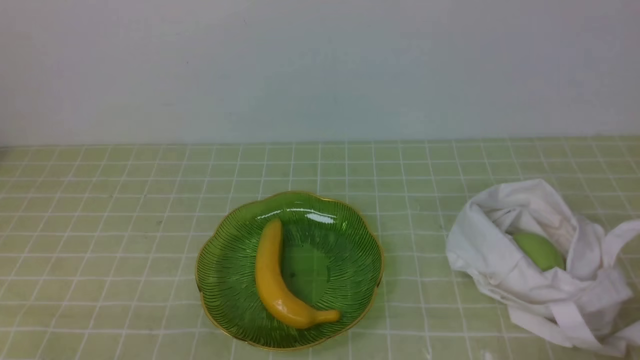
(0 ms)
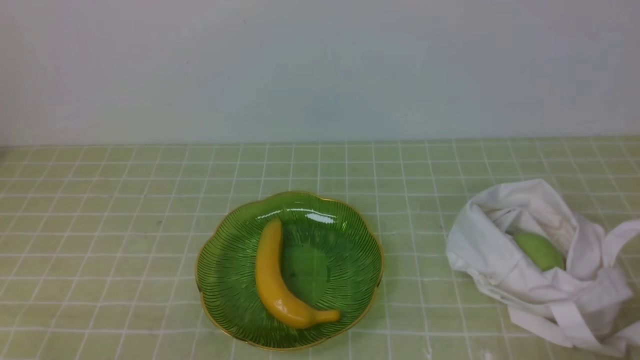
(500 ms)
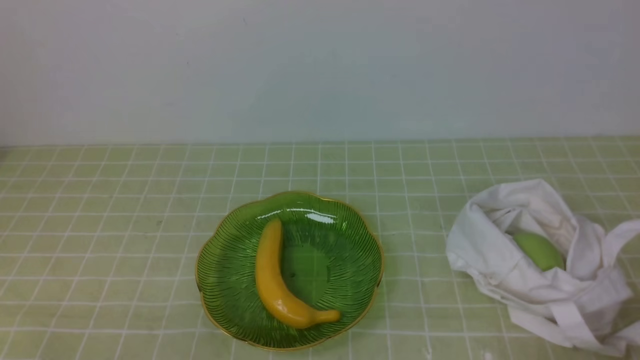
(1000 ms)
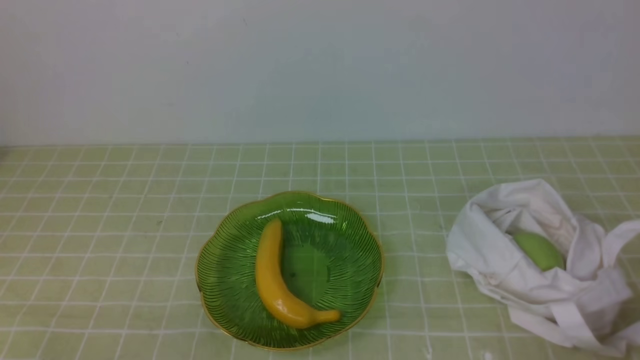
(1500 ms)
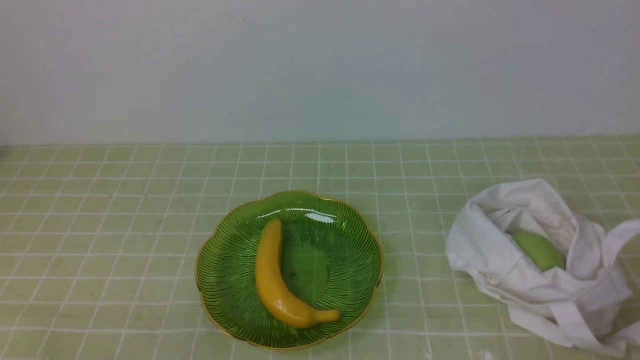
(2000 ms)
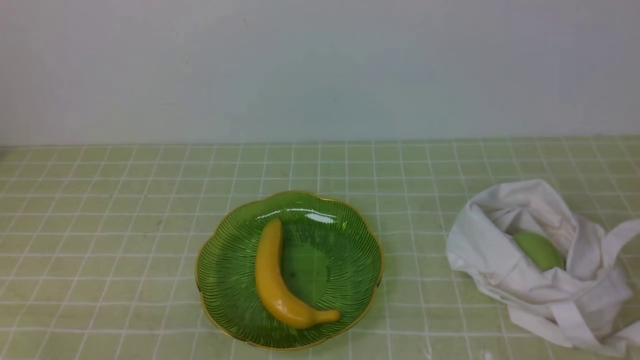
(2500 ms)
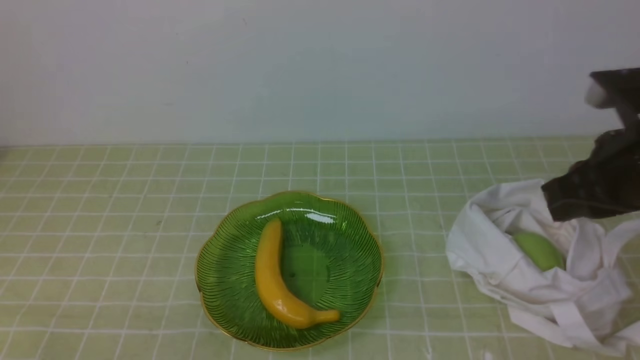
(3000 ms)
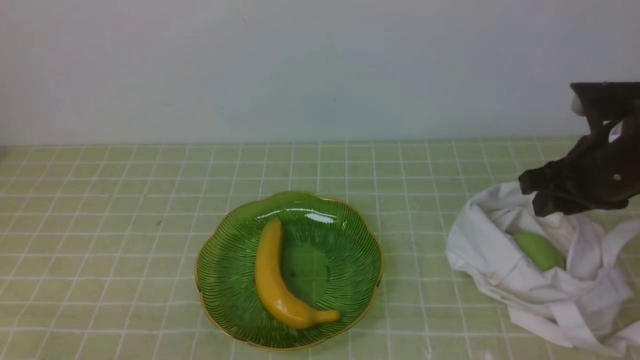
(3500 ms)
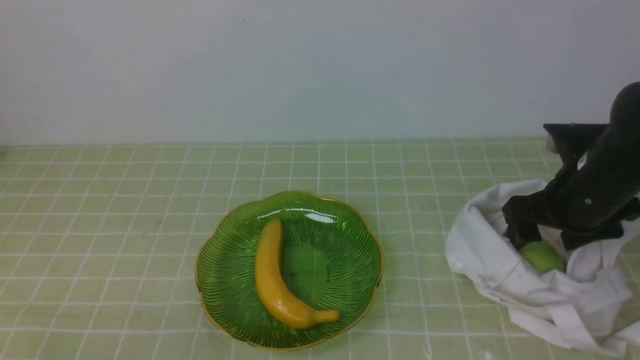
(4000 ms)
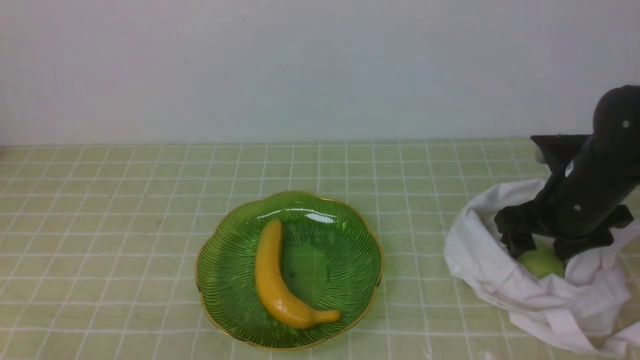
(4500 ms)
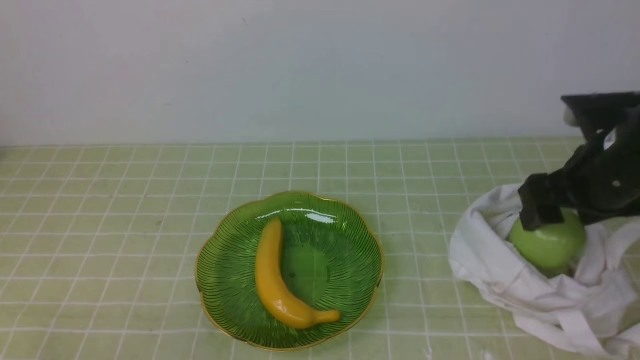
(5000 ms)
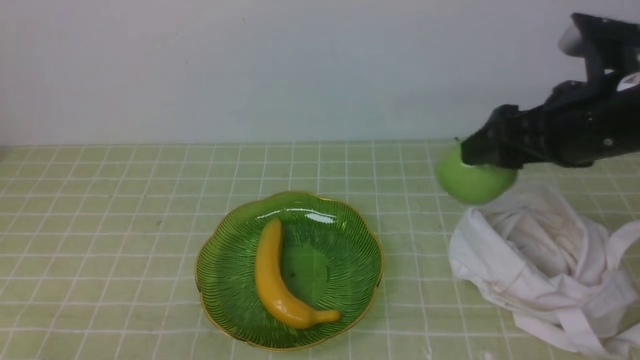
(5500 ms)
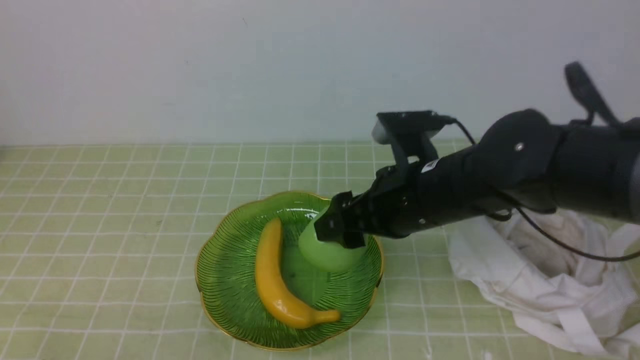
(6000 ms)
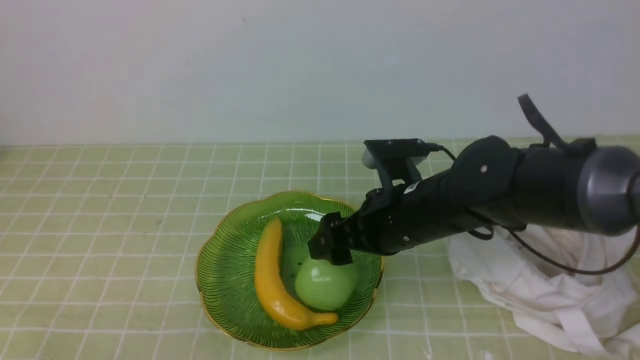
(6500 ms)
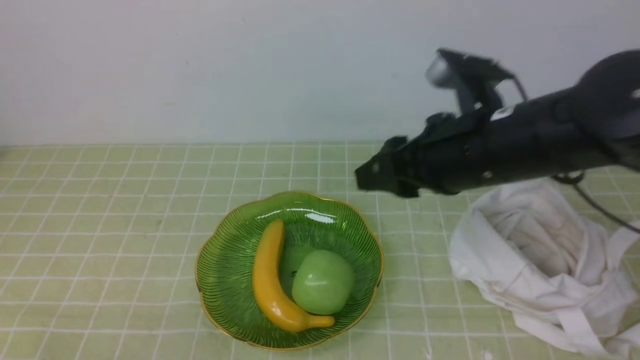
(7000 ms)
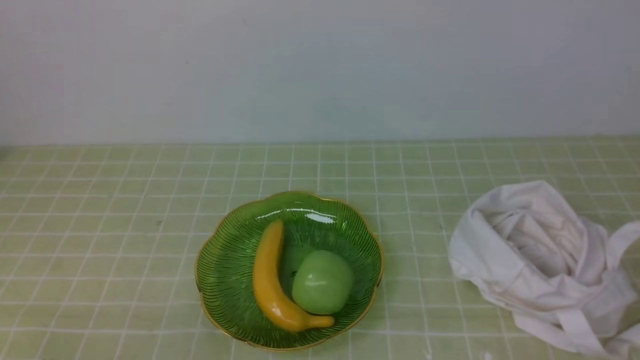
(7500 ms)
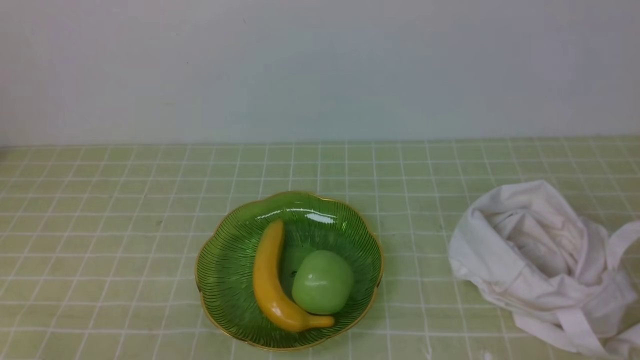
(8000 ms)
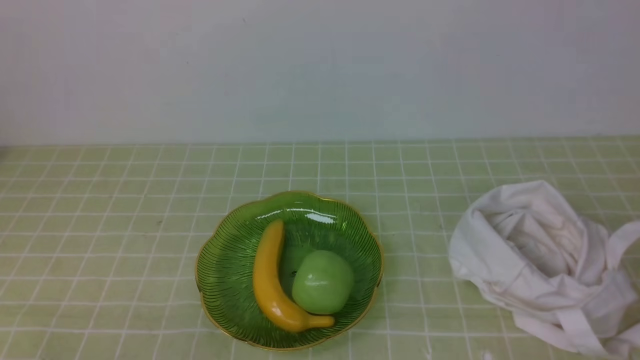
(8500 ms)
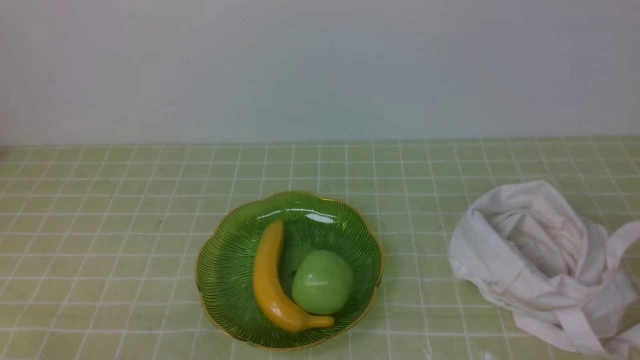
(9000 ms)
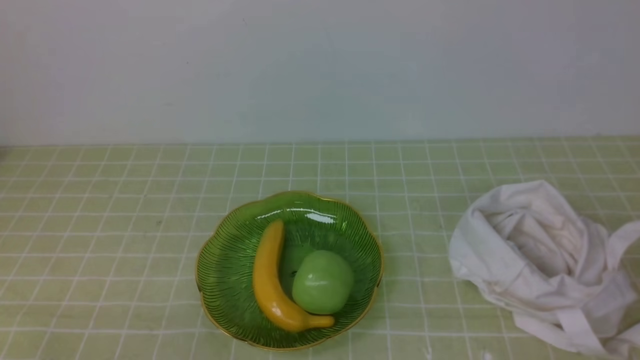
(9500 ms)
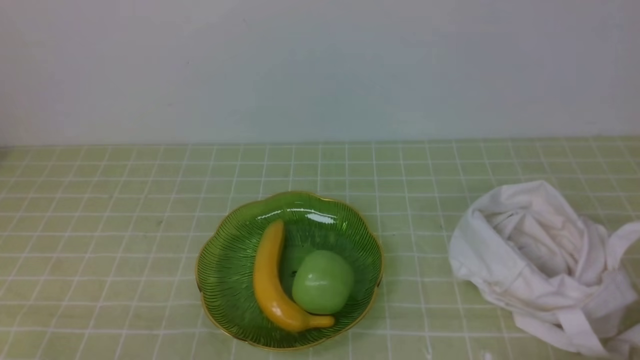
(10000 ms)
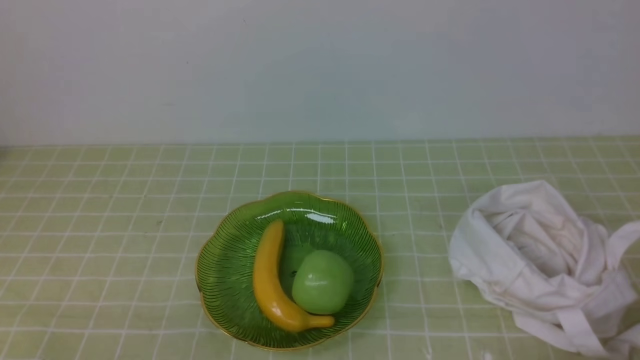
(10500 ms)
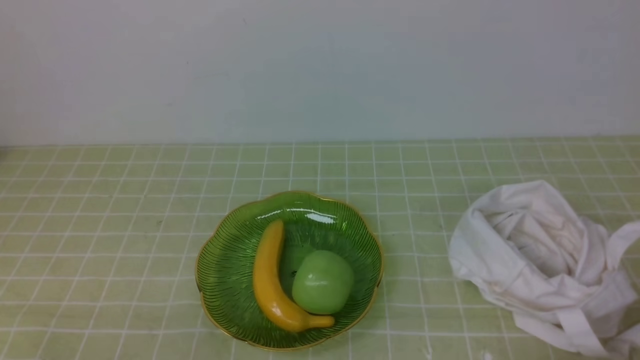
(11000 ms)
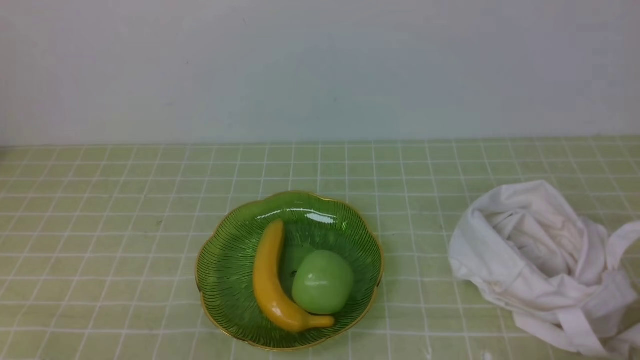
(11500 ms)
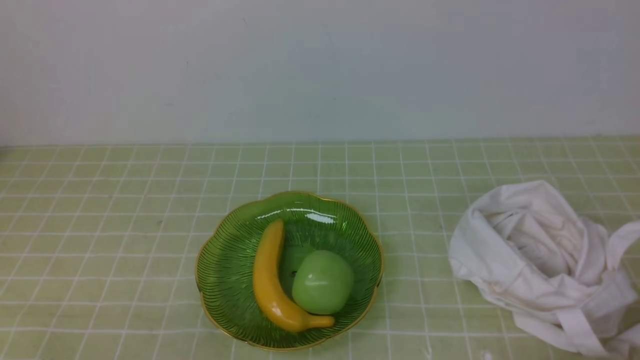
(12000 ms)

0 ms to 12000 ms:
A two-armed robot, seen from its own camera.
Step, 0 ms to 4500 ms: use the right arm to grab an apple from the bag.
Step, 5500 ms to 6000 ms: use the right arm to put the apple into the empty plate on the left.
2000 ms to 4000 ms: The right gripper is displaced forward by about 25 cm, and opens.
4000 ms to 6000 ms: The right gripper travels to the left by approximately 15 cm.
6000 ms to 8000 ms: The right gripper travels backward, to the right and upward by roughly 35 cm, and closes up.
10000 ms to 12000 ms: Both grippers stay about where they are.

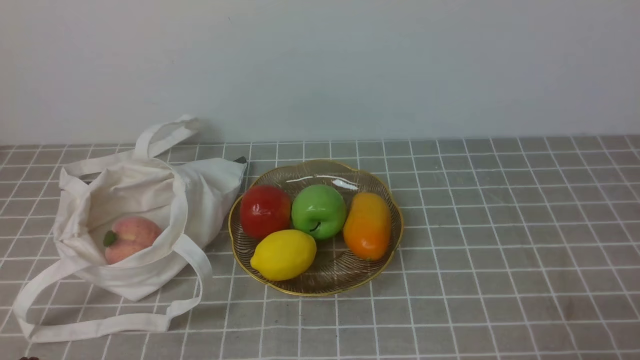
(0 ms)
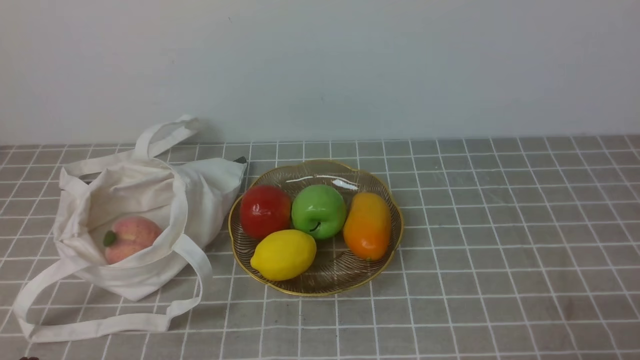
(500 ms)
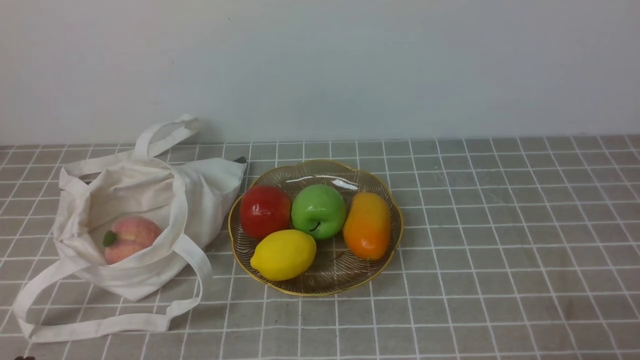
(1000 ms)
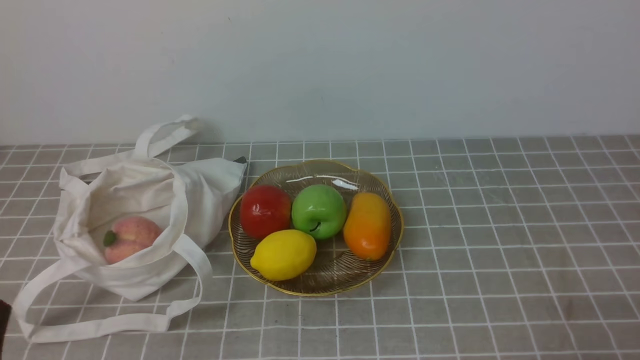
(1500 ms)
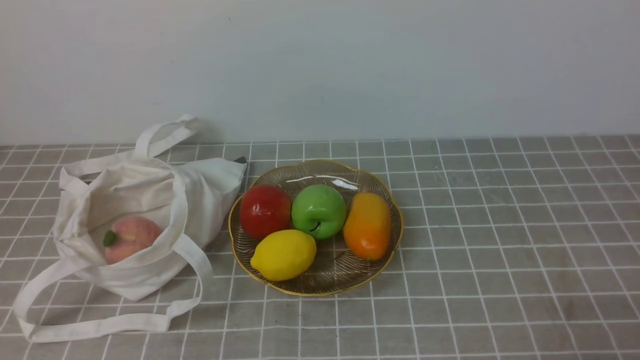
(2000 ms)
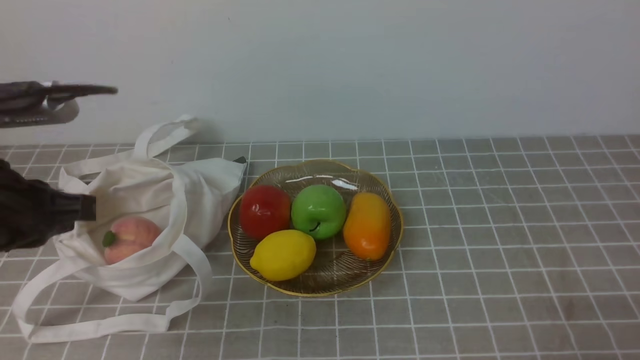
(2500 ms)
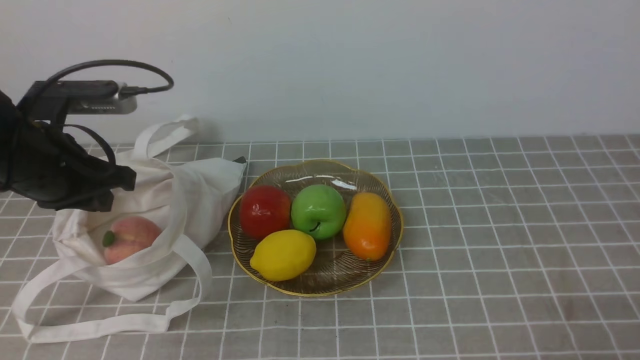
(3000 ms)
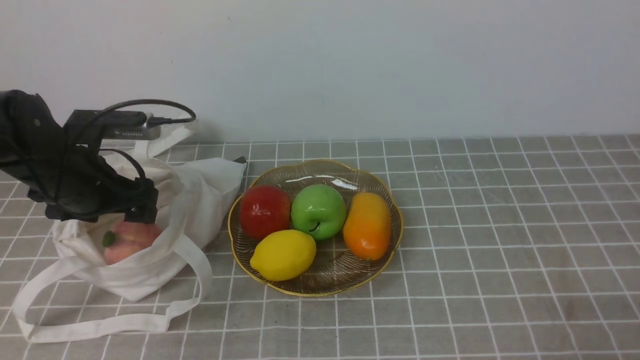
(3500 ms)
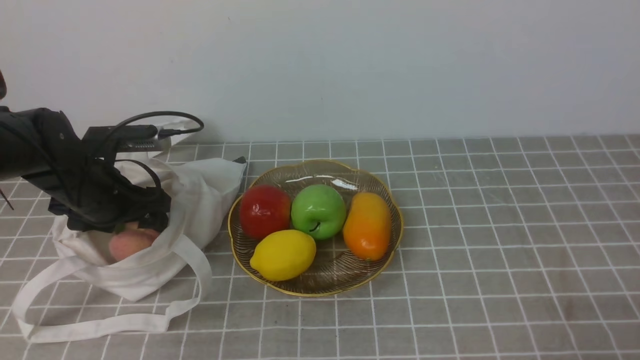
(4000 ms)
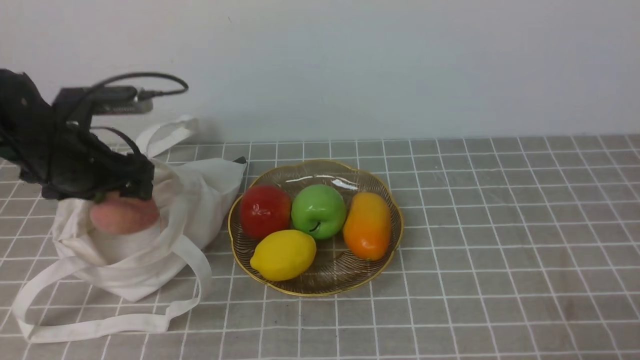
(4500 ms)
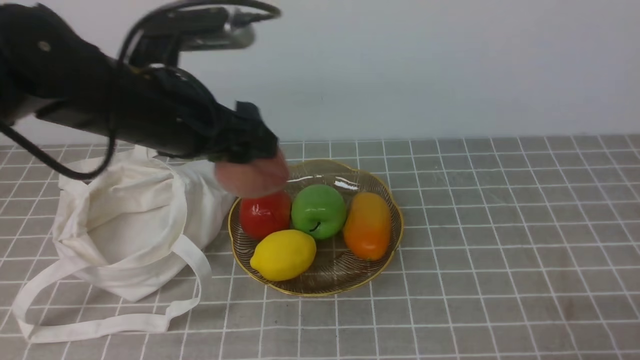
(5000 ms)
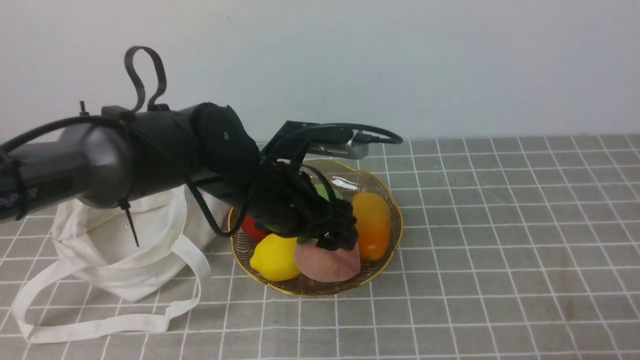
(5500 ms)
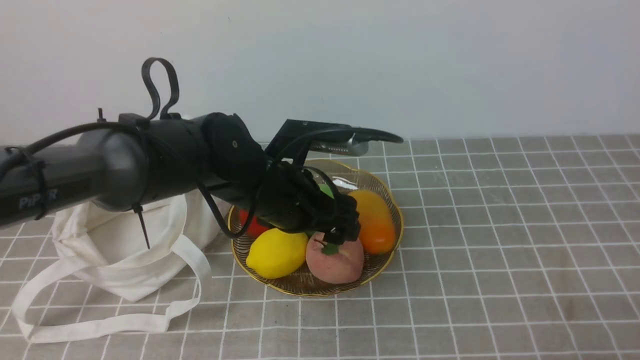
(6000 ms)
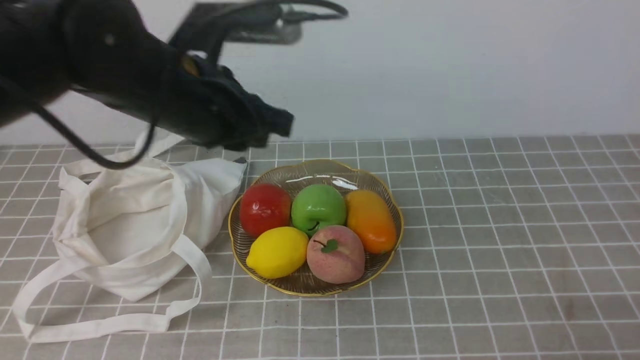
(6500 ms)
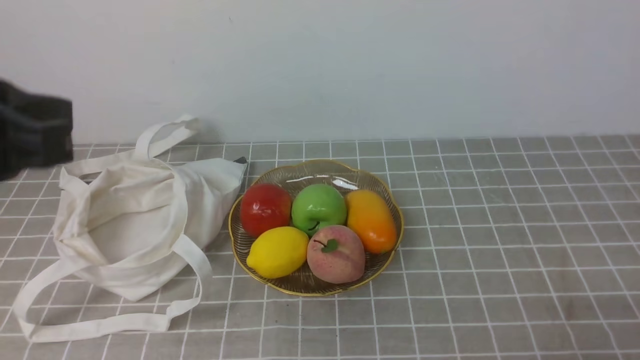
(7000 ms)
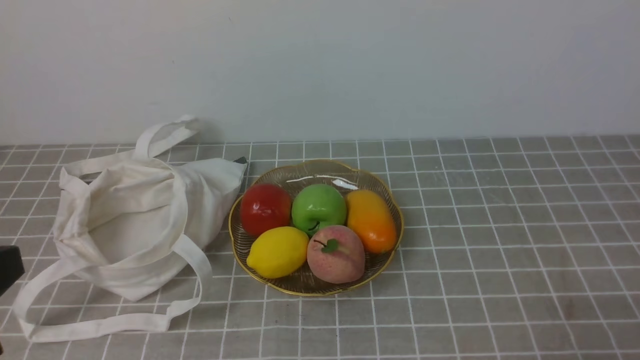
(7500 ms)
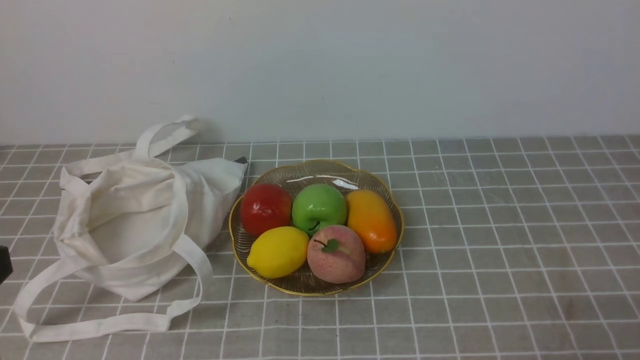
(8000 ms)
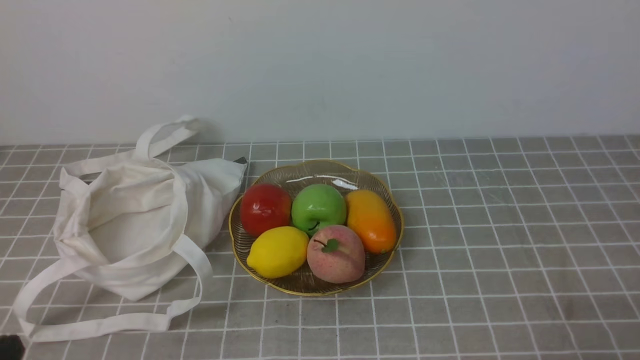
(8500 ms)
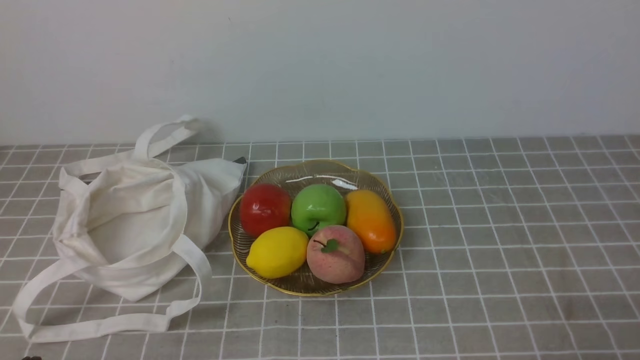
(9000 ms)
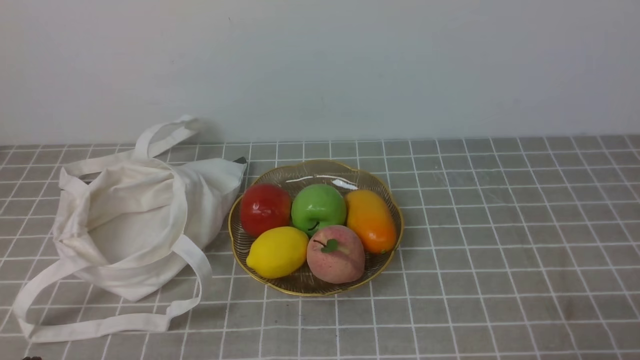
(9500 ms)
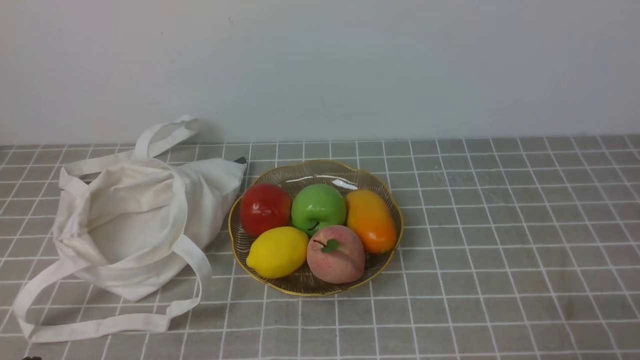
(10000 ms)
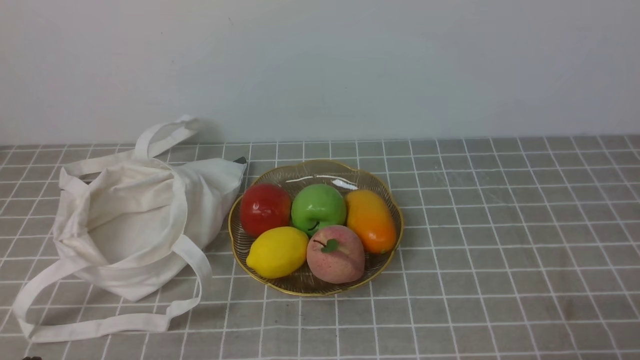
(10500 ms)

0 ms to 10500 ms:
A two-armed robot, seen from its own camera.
Step, 0 ms to 4500 ms: use the left arm to grab a peach from the bag.
Step, 5000 ms to 6000 ms: use the left arm to put the peach into the empty plate on the right.
2000 ms to 4000 ms: The left gripper travels forward by about 30 cm, and opens.
4000 ms to 6500 ms: The left gripper travels to the right and upward by about 20 cm, and closes.
6500 ms to 8500 ms: The left gripper shifts about 30 cm backward and to the left, and closes.
